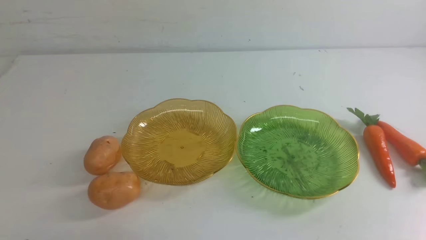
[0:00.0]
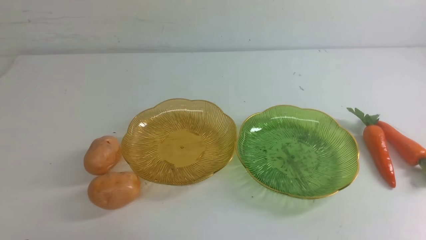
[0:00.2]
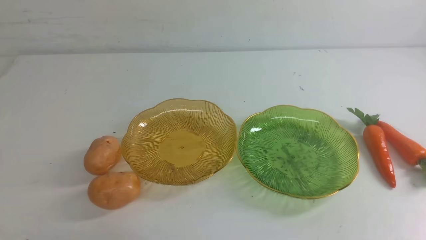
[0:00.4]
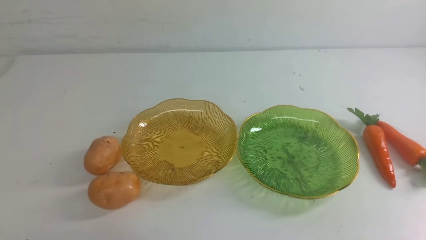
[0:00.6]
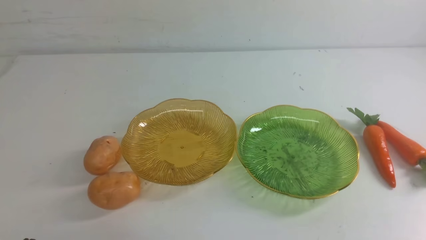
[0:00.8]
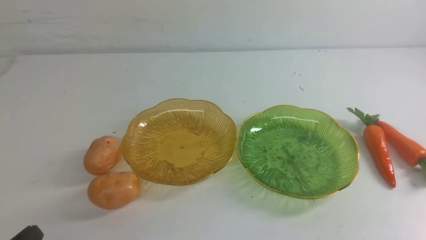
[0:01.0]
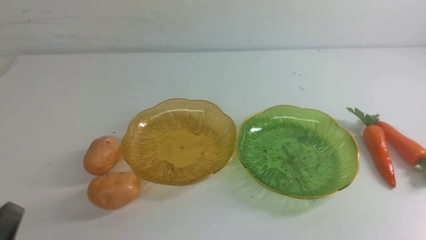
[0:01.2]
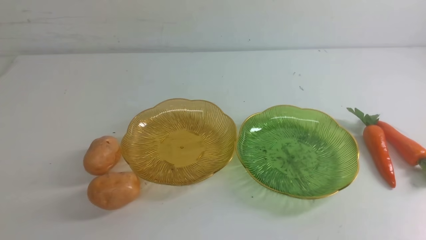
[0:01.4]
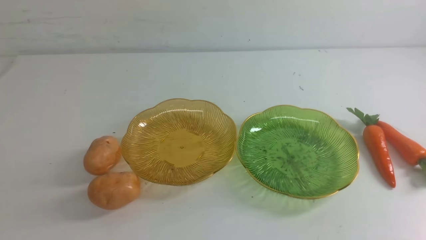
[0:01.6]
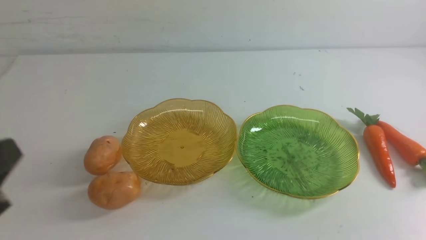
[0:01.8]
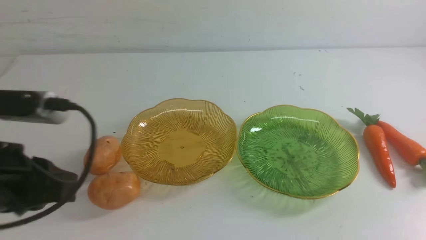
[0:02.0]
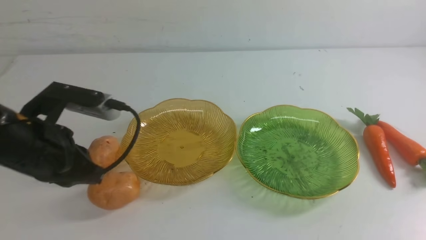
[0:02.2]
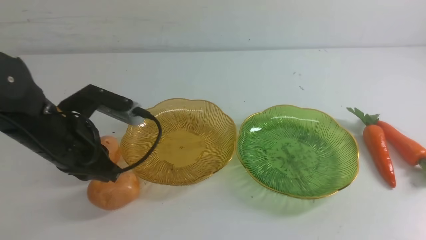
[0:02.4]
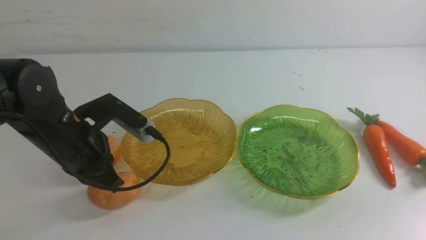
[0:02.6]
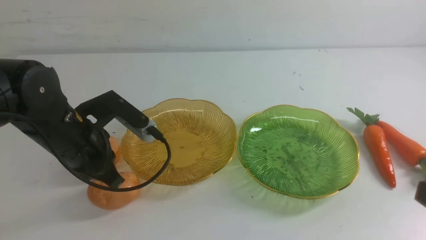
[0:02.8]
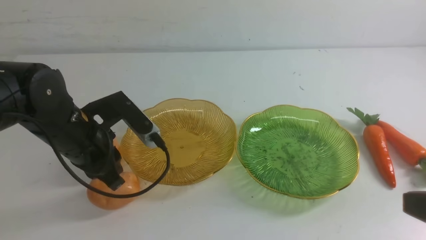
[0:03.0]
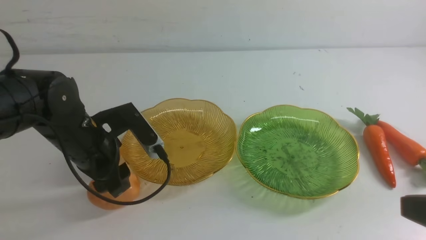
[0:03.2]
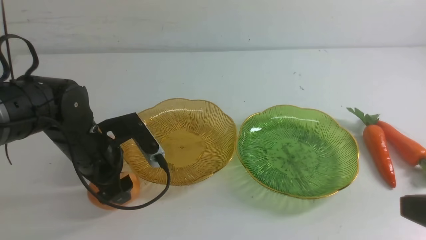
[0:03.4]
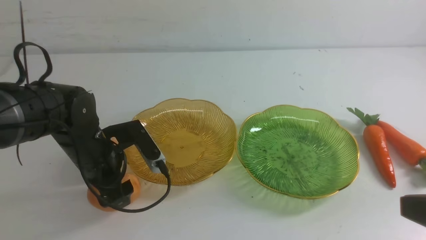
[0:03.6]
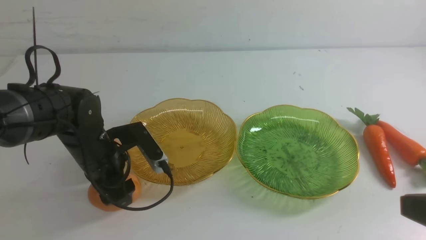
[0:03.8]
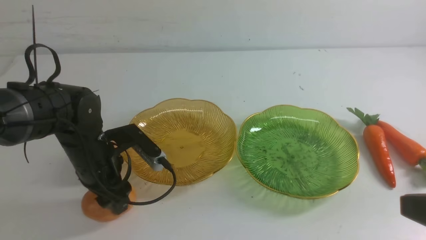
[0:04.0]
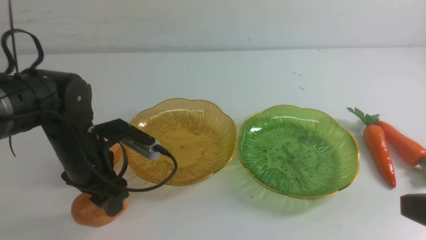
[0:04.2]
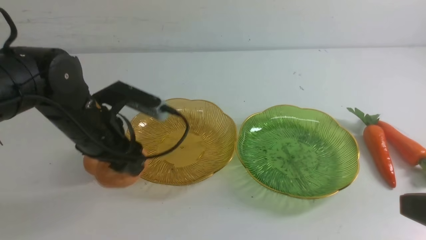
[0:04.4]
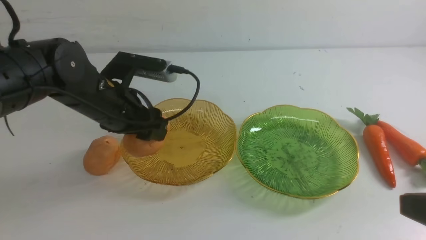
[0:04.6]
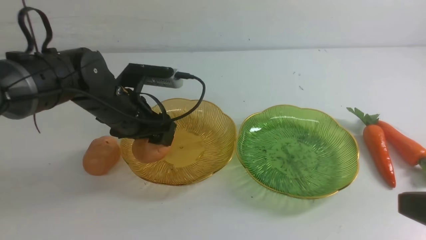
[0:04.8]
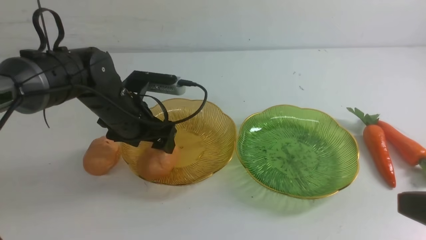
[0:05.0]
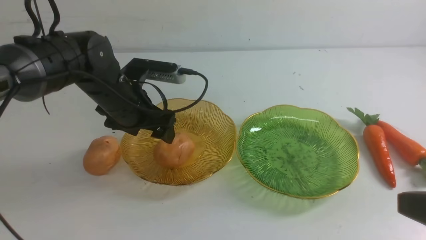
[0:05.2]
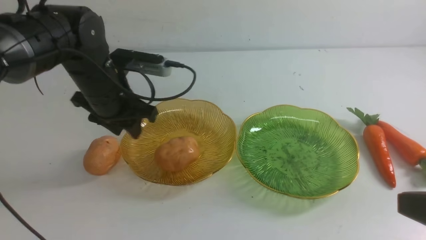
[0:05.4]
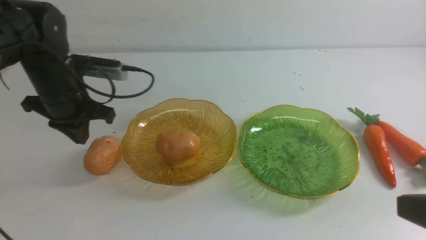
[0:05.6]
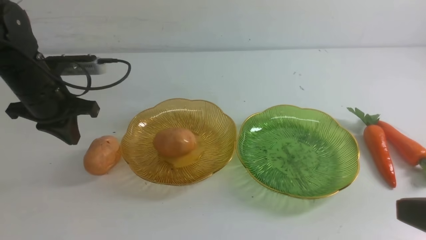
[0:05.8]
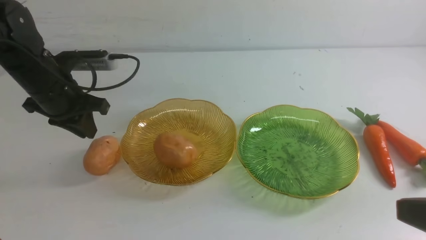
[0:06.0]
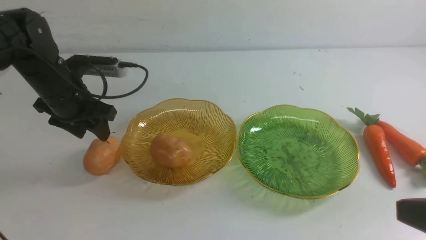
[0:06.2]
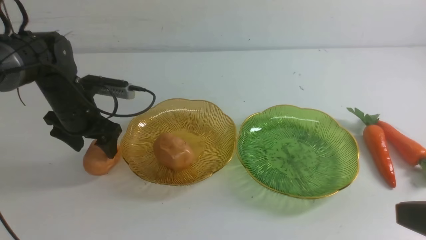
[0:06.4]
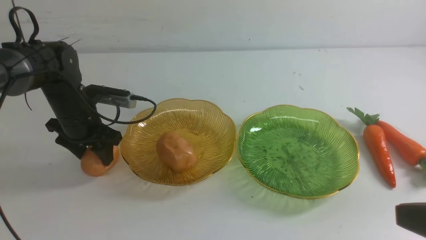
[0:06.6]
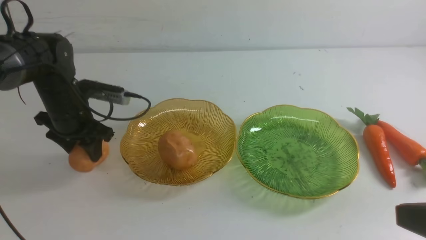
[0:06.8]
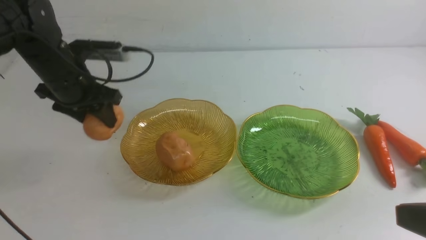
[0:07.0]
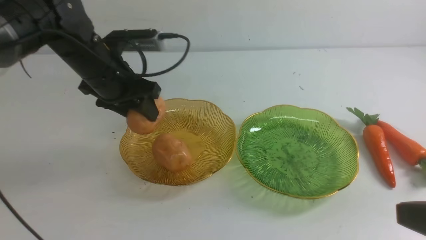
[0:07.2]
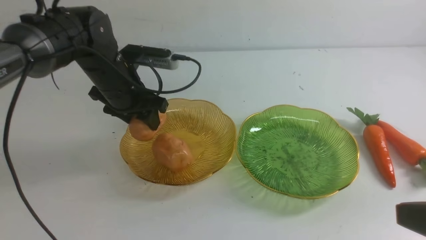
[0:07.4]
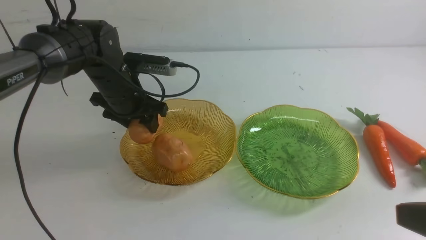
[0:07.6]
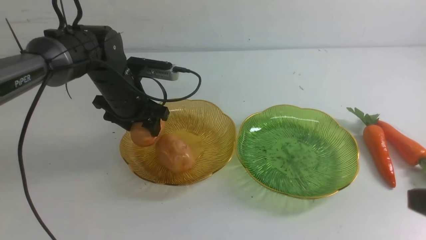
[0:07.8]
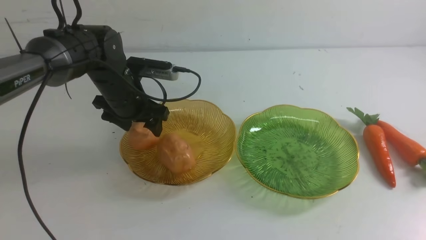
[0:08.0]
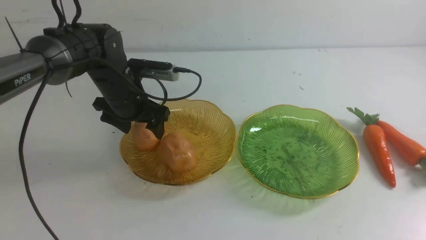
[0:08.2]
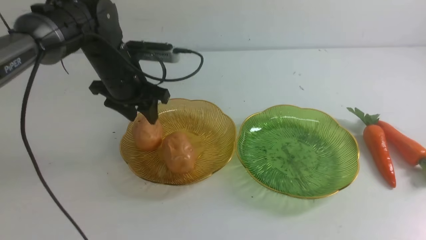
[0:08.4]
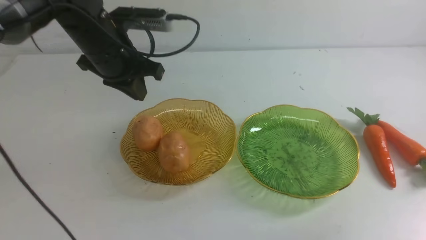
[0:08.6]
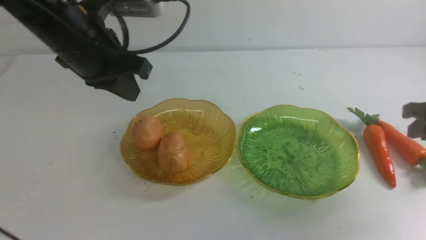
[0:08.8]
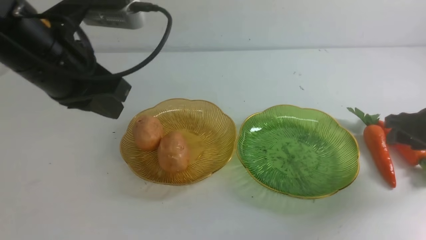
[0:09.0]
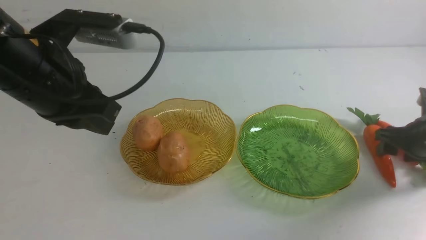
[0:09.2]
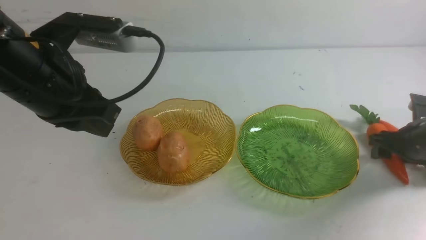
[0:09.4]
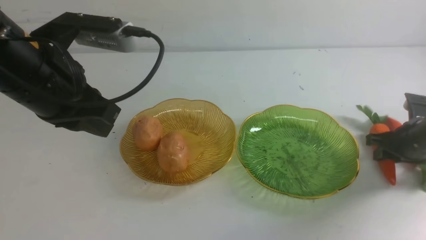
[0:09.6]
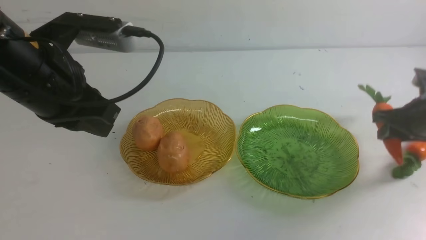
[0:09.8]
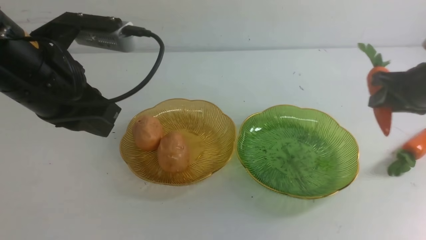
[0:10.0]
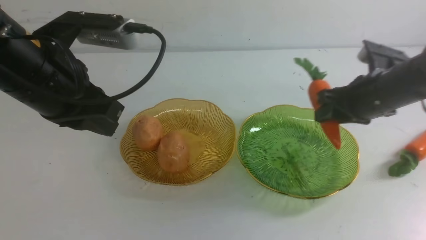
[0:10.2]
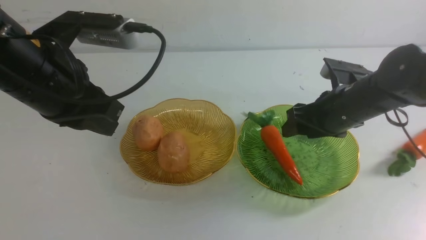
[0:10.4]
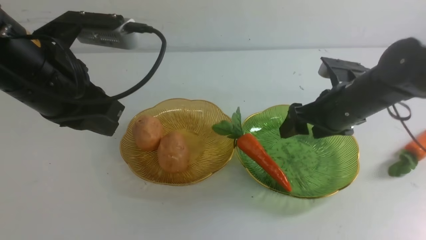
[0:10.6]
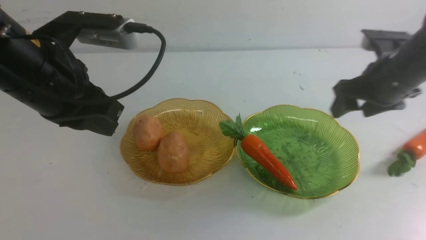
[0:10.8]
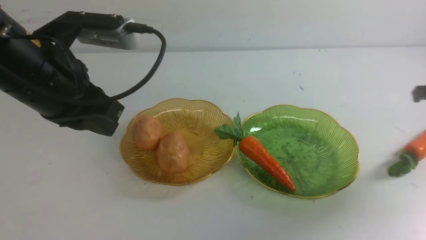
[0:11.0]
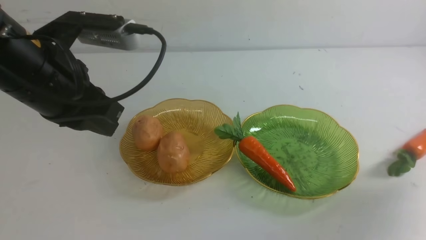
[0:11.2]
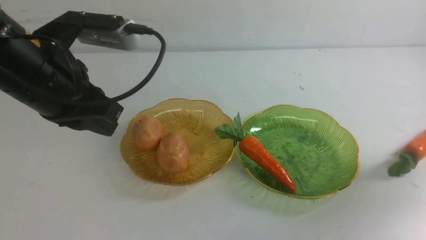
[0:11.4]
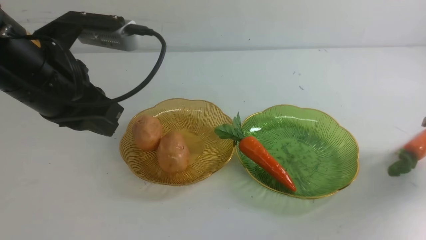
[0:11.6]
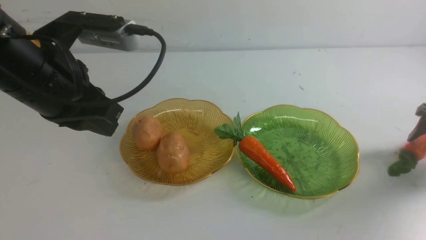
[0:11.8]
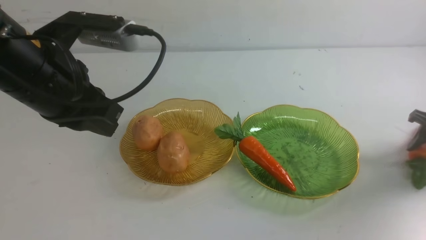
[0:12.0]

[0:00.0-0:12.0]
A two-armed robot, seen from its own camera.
Step, 0:00.0 to 0:08.4: Grab a potato with your left arm and put it on the left plate.
Step, 0:08.6 to 0:10.6: use the right arm to grab a carrot and put it into the right plate.
0:01.6 to 0:03.0: The right gripper travels upward by approximately 10 cm. The left gripper heads forward and downward, covering some 25 cm, and opens.
0:03.0 to 0:04.4: The left gripper shifts by roughly 5 cm.
0:04.4 to 0:06.0: The left gripper is displaced to the left by approximately 10 cm, and closes up.
0:06.0 to 0:07.6: The left gripper heads to the right, covering roughly 10 cm, and opens up.
0:07.6 to 0:09.0: The left gripper goes approximately 20 cm upward and backward, and closes. The right gripper moves forward and downward, some 25 cm, and opens its fingers.
0:09.0 to 0:10.4: The right gripper goes about 15 cm to the left.
0:10.4 to 0:12.0: The right gripper is displaced to the right by some 20 cm, and closes and opens again.

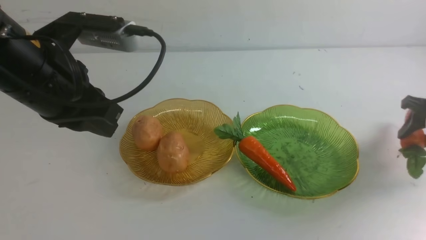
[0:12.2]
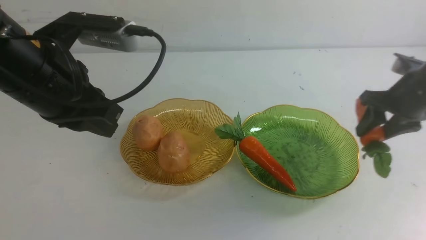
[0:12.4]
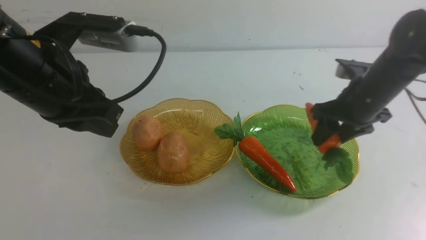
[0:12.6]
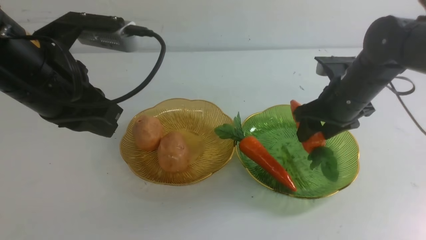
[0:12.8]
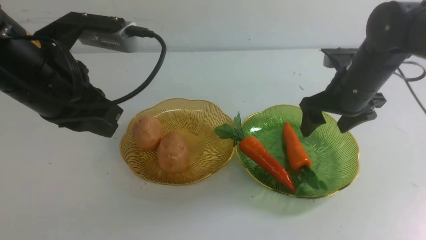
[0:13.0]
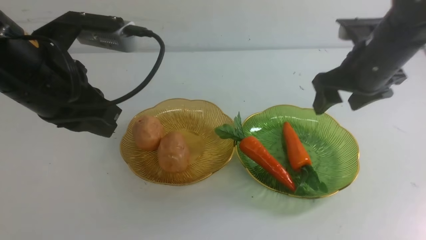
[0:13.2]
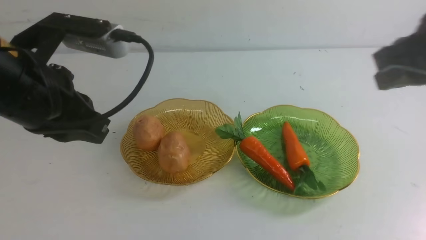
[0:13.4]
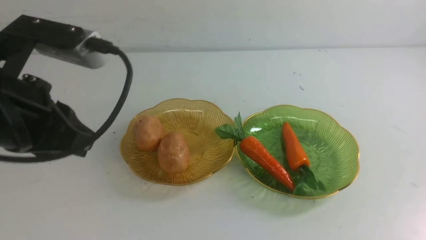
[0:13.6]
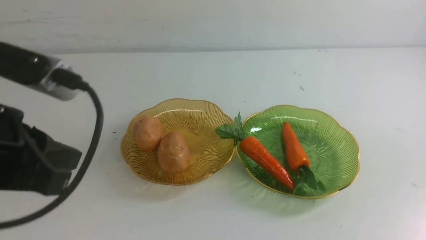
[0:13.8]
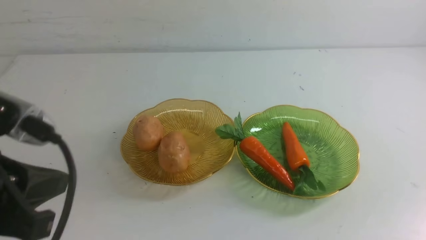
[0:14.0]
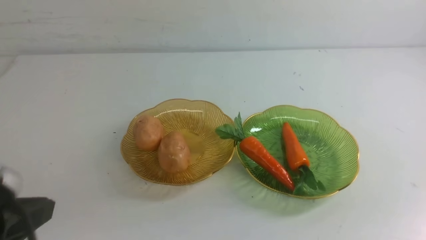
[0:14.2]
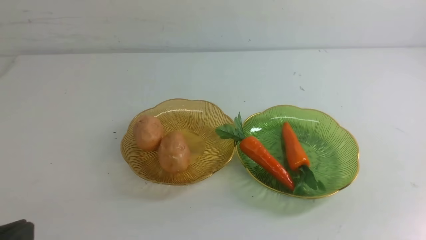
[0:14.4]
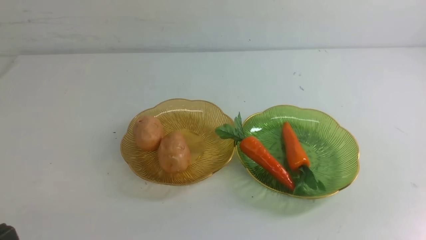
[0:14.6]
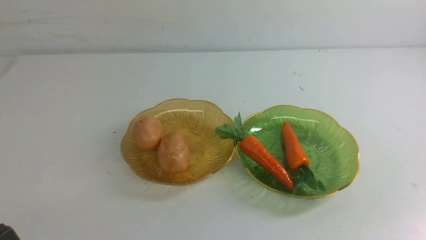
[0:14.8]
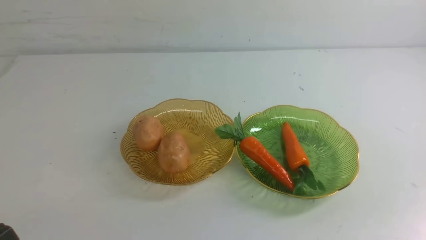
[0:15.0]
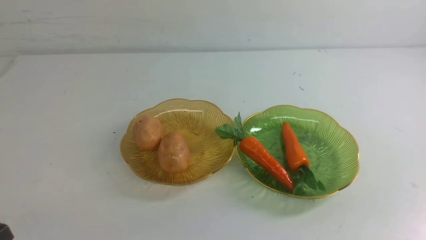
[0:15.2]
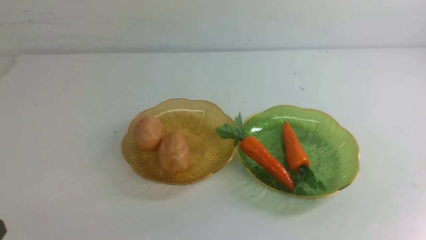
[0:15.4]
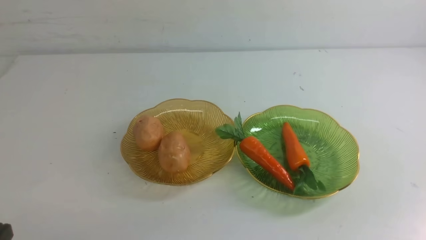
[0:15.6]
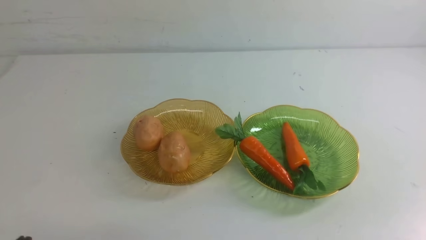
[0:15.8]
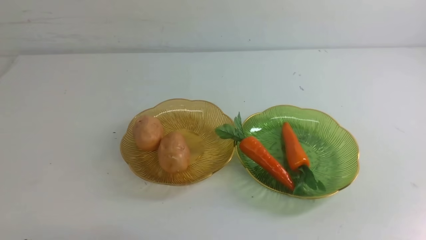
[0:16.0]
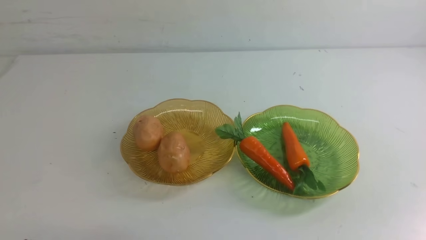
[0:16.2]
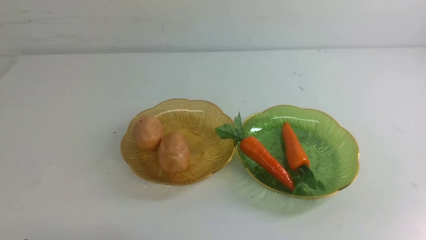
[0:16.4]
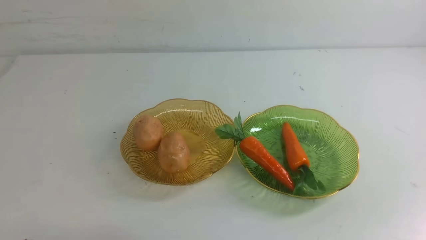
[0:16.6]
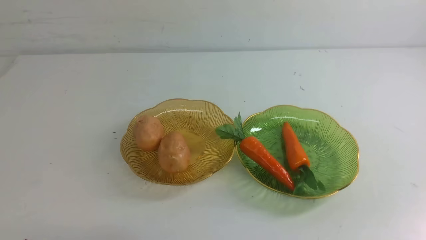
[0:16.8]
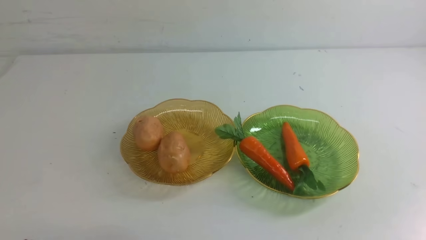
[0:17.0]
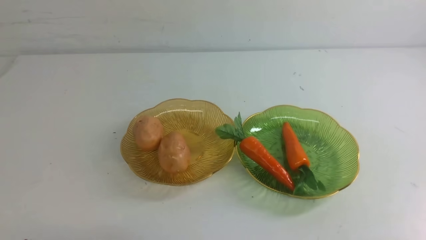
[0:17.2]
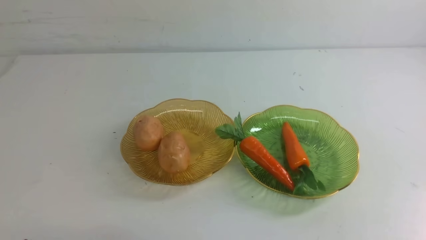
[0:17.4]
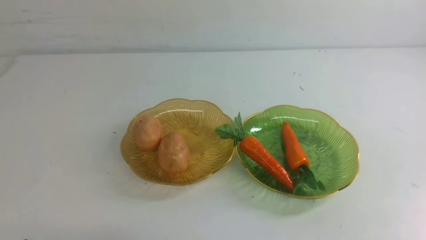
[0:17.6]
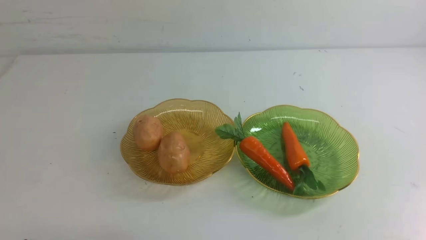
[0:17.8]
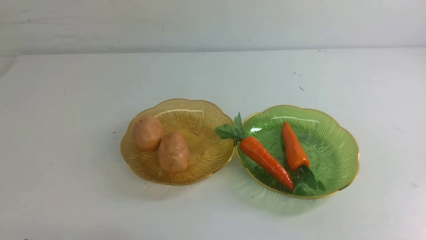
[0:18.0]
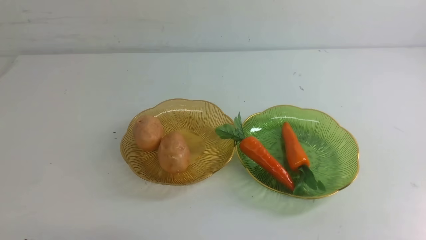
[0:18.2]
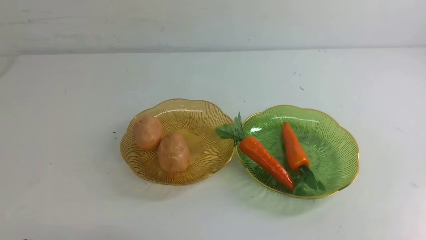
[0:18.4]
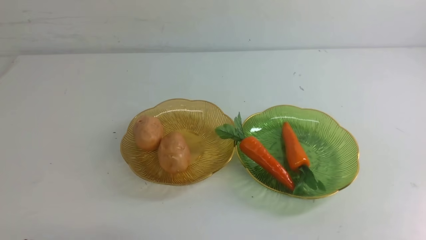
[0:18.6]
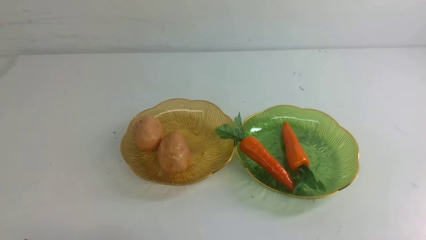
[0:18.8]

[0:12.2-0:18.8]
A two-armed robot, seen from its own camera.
0:12.2 to 0:13.8: The right gripper heads backward and upward, covering about 35 cm, and closes its fingers; the left gripper is displaced backward by some 10 cm.
0:13.8 to 0:15.4: The left gripper heads downward and backward, covering approximately 20 cm.
